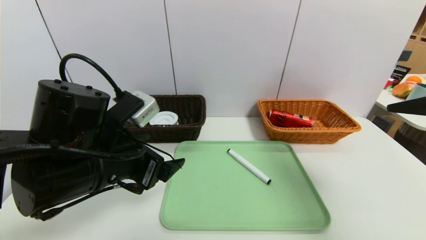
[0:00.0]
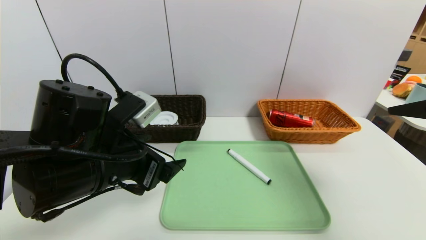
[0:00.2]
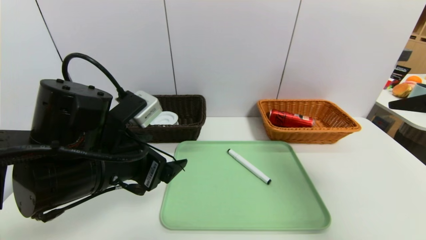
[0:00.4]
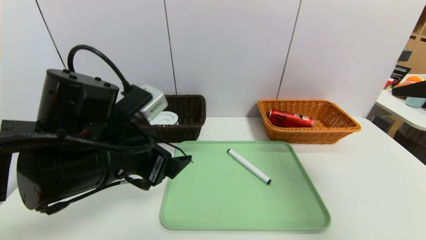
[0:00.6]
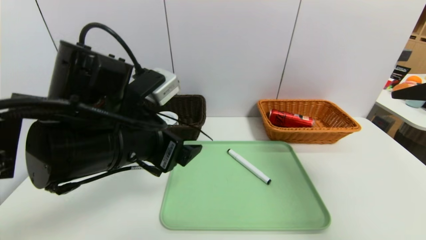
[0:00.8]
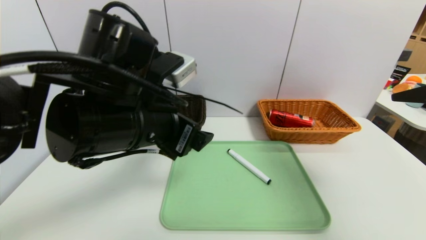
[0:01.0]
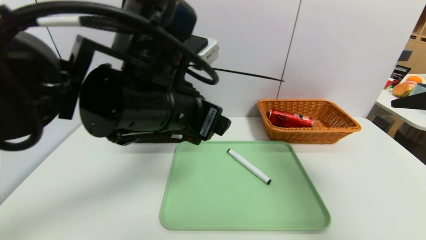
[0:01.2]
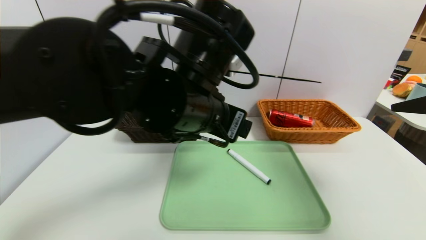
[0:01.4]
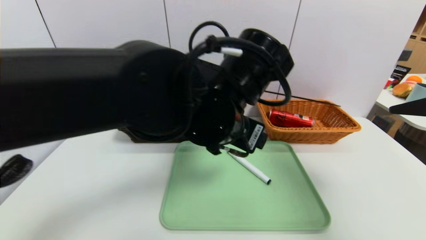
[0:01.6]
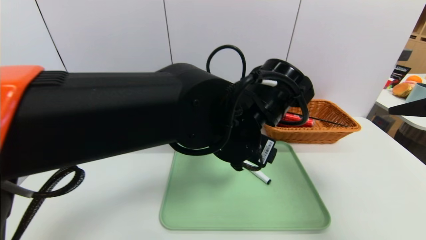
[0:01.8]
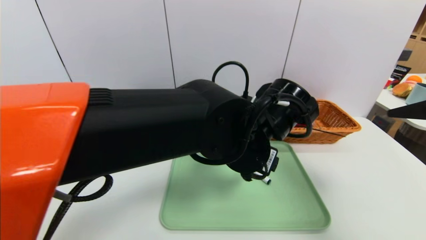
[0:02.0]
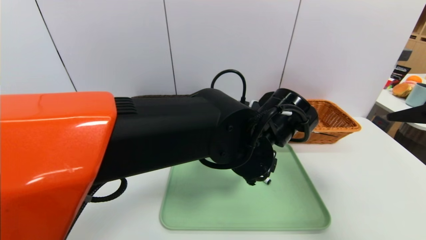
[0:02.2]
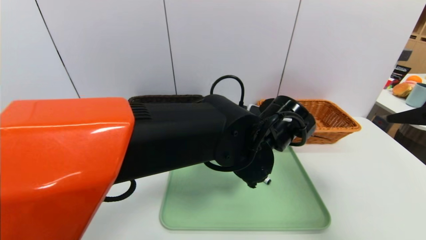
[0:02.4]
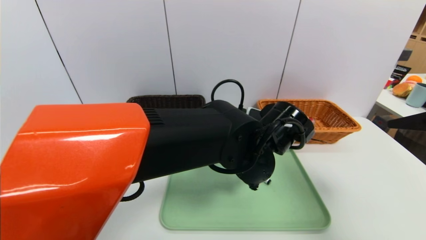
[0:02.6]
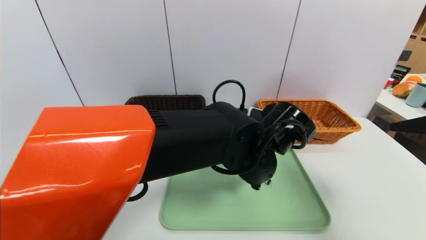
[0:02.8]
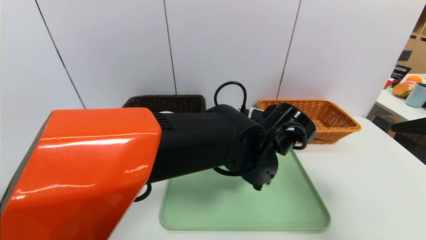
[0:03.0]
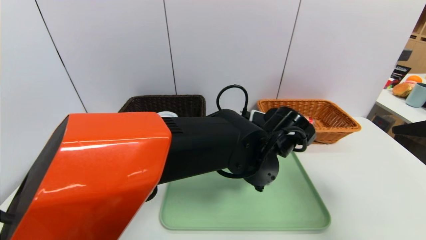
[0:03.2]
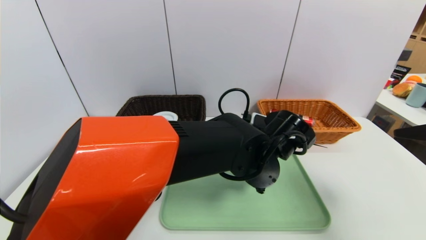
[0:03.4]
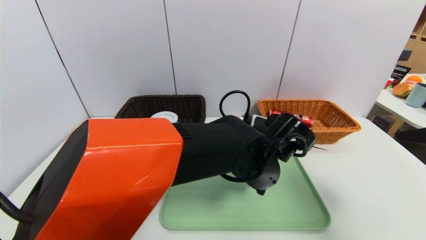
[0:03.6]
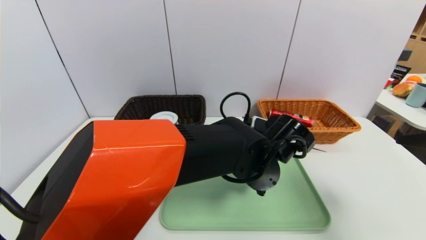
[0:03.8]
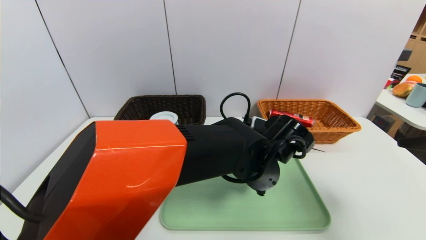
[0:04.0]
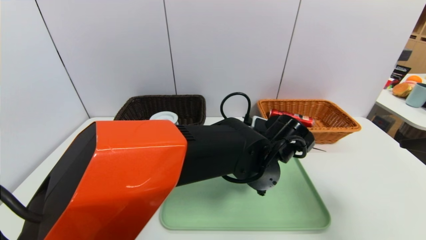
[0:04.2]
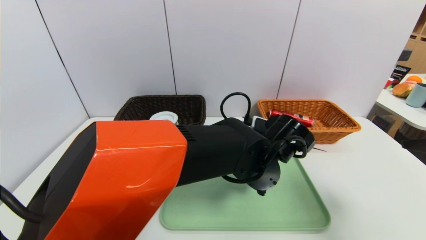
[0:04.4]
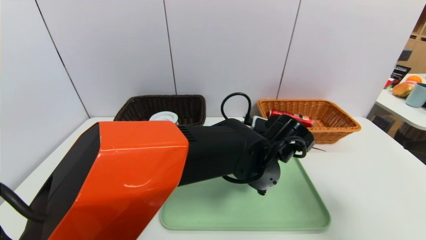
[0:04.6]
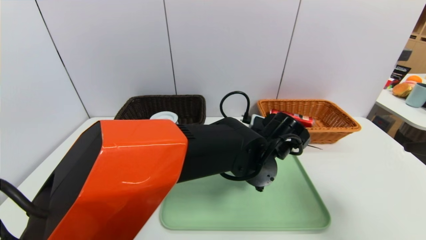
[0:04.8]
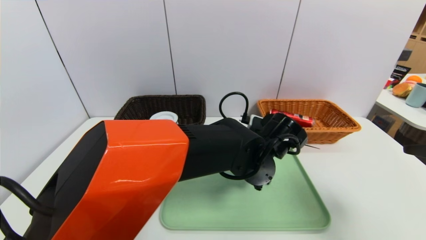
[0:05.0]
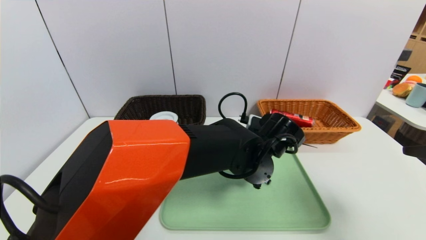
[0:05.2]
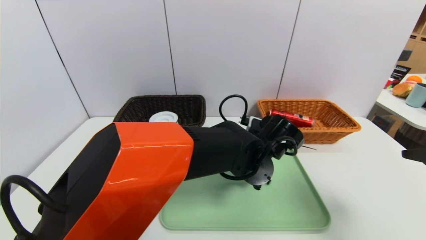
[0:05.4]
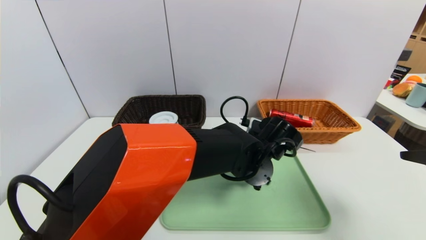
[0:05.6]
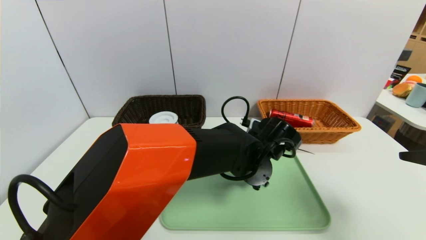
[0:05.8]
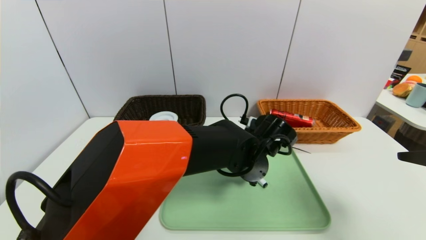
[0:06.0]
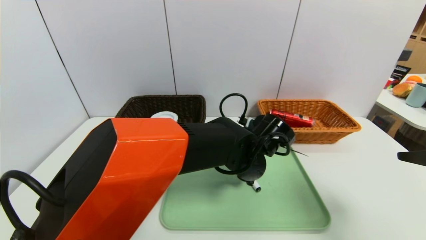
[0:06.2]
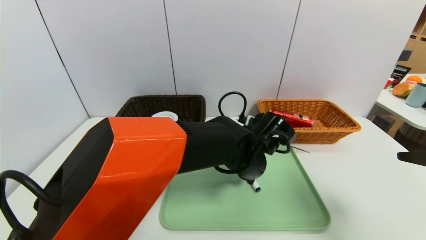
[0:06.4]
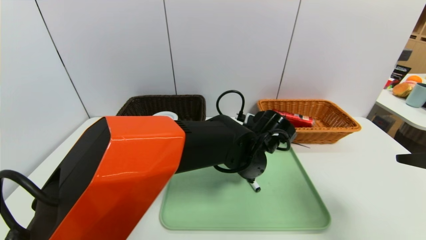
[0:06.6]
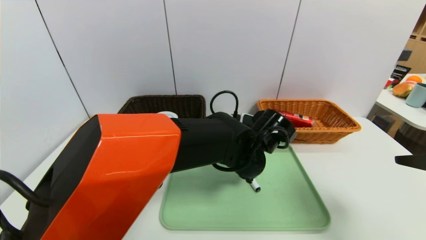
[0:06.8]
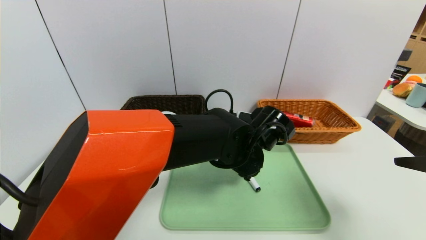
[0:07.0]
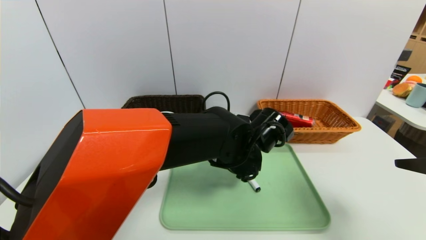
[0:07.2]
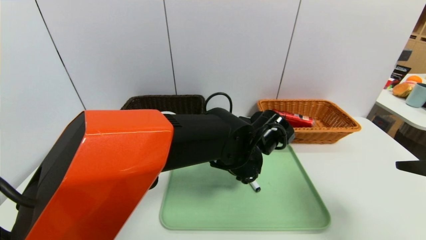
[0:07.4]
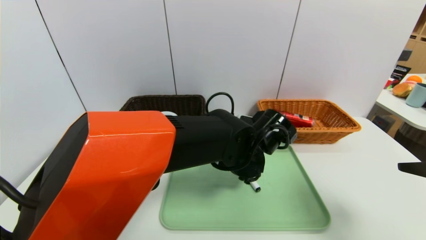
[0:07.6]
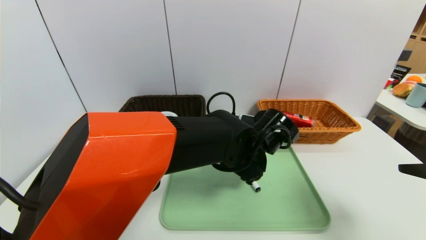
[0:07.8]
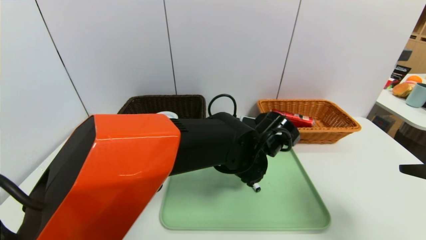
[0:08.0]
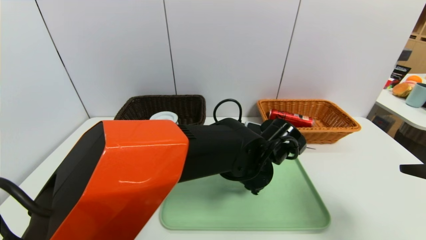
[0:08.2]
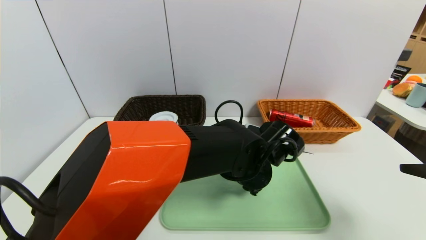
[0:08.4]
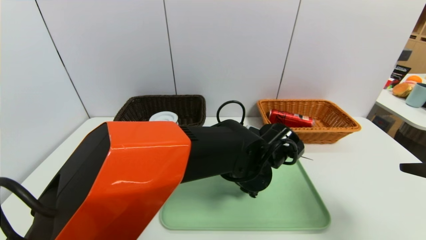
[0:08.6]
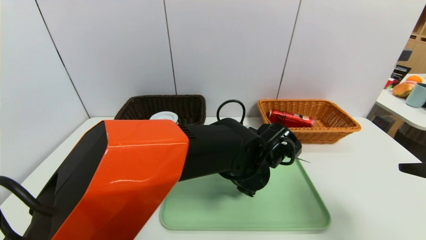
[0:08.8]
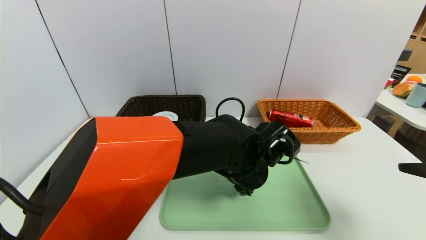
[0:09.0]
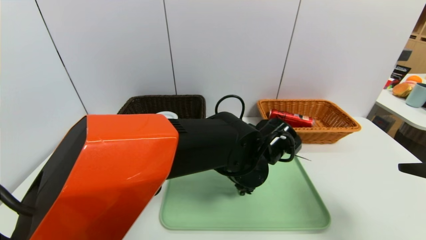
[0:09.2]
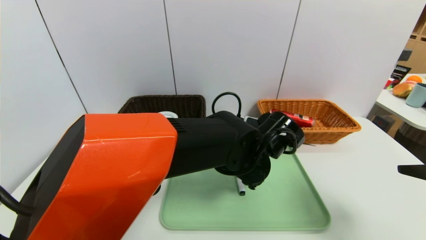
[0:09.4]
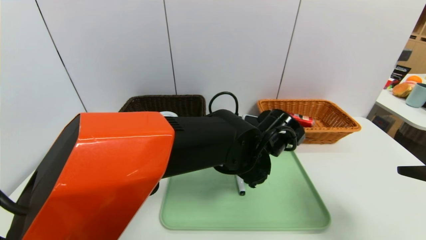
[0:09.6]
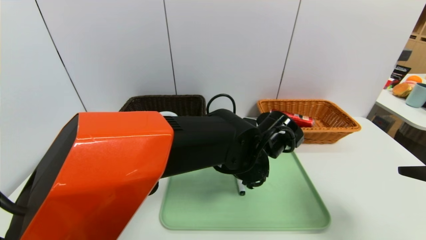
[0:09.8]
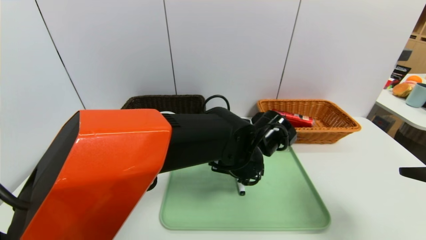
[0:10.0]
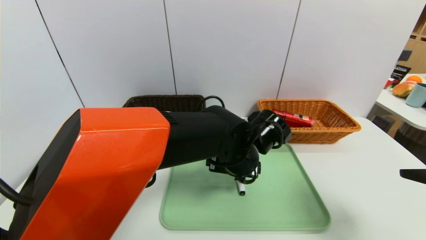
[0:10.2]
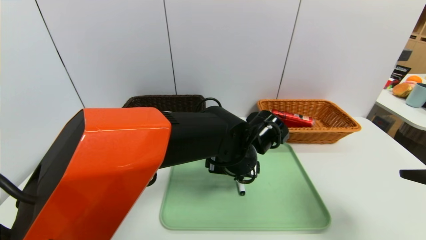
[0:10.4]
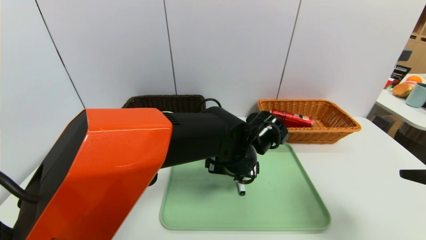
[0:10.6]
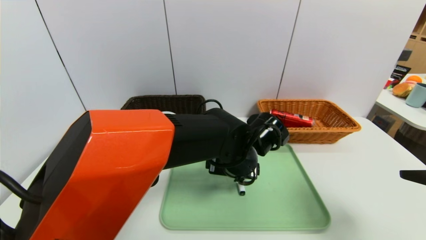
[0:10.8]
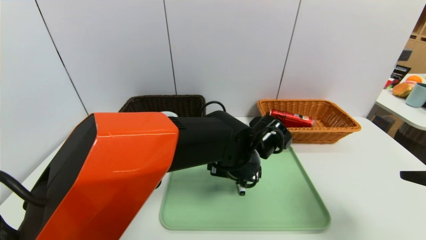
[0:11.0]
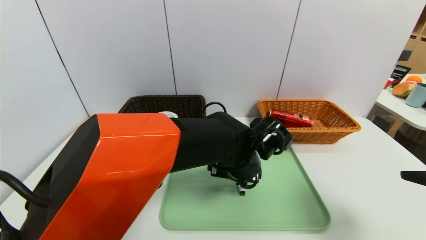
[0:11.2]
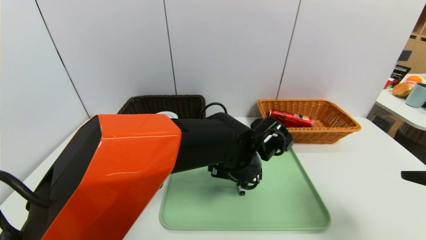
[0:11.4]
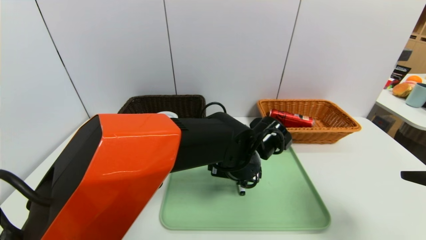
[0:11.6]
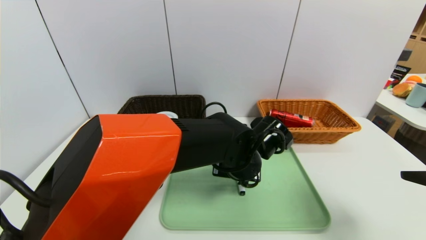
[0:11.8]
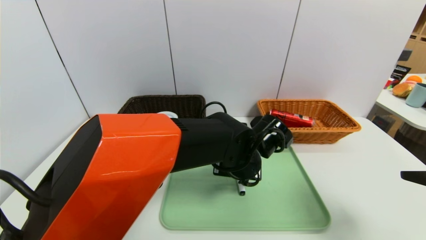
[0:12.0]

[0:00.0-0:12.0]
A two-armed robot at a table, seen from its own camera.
Task of the whole recording: place the food in the right basket with the right gripper, and place the non food items in the left basket with the left gripper.
0:00.0 to 0:01.6: The left gripper shifts roughly 15 cm to the right.
0:01.6 to 0:03.0: The left gripper heads downward and to the right, covering about 10 cm.
0:03.0 to 0:09.0: There are only small adjustments of the grippers.
0:10.4 to 0:12.0: The left gripper closes its fingers.

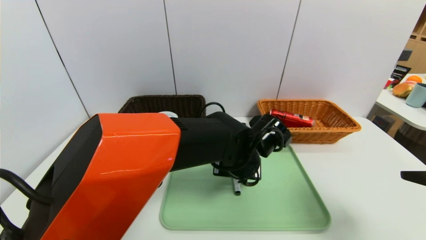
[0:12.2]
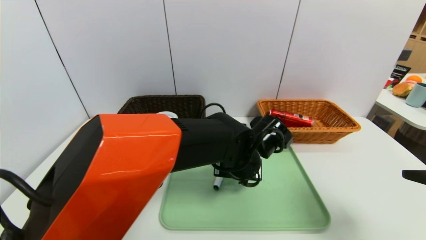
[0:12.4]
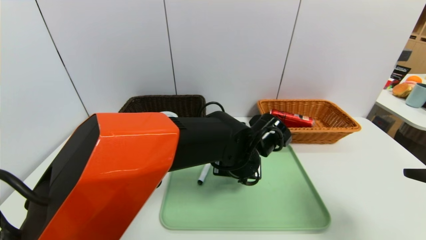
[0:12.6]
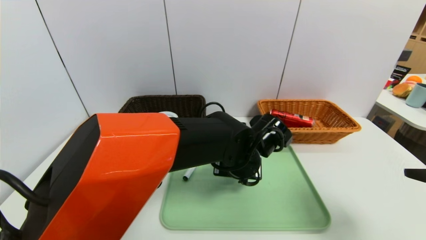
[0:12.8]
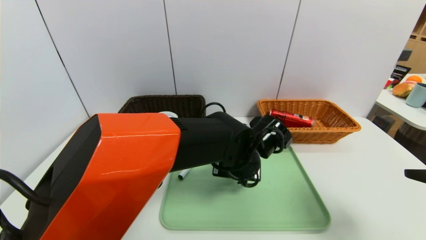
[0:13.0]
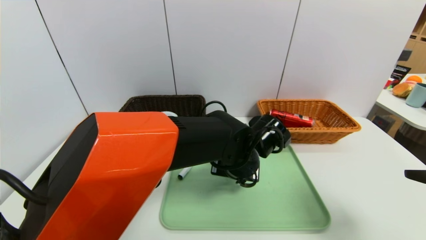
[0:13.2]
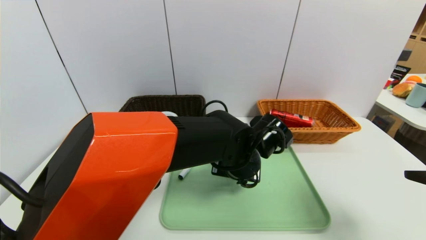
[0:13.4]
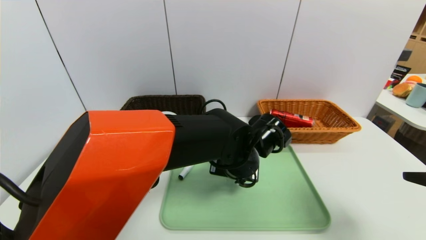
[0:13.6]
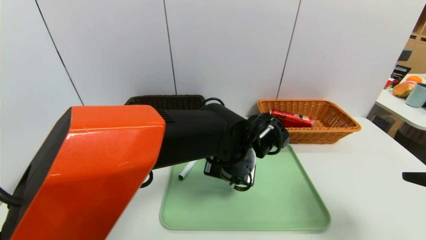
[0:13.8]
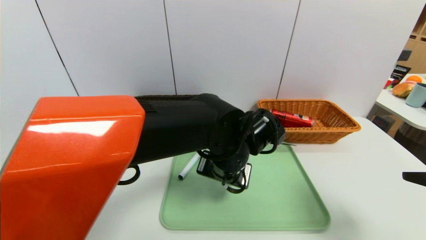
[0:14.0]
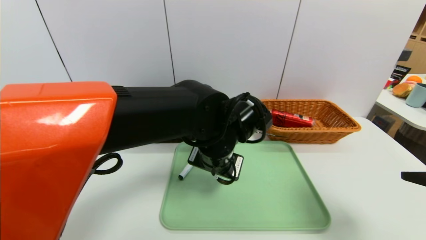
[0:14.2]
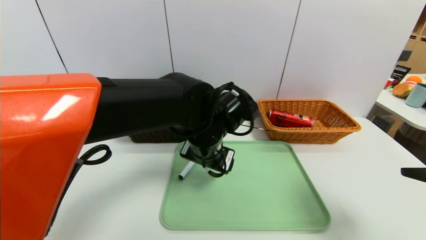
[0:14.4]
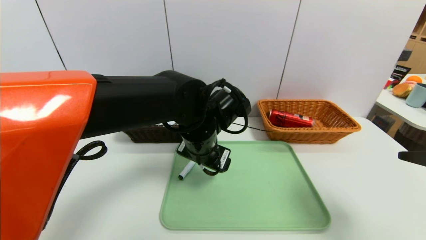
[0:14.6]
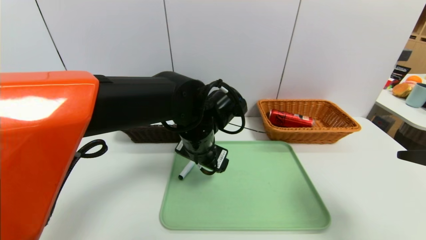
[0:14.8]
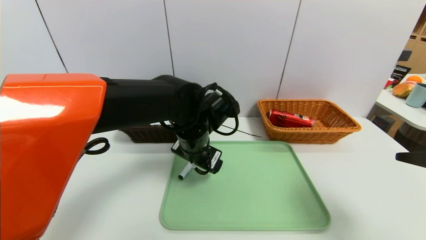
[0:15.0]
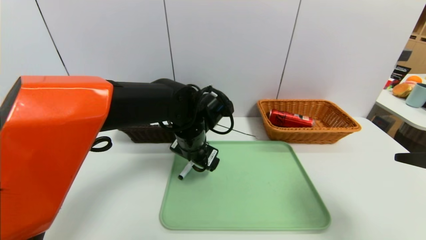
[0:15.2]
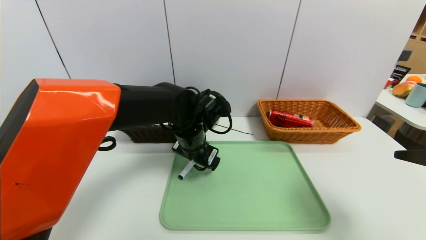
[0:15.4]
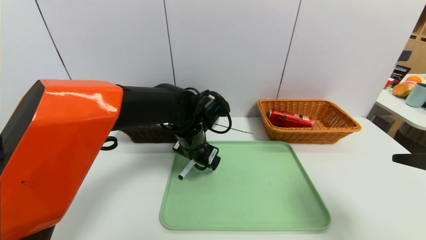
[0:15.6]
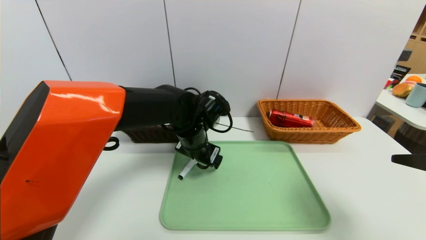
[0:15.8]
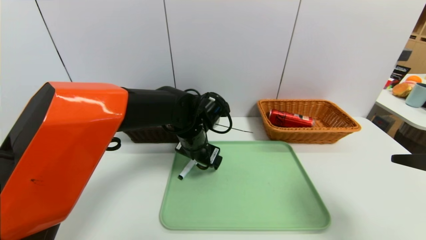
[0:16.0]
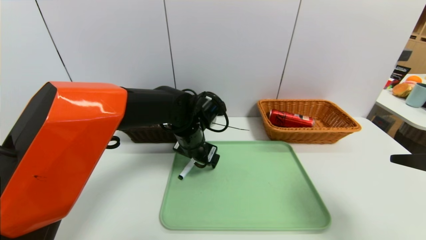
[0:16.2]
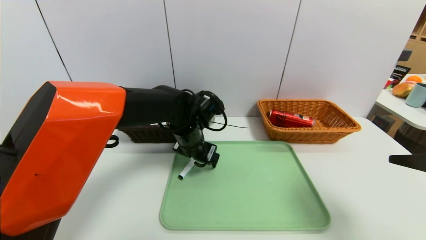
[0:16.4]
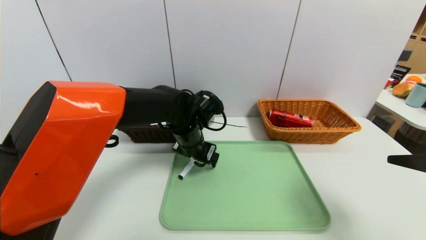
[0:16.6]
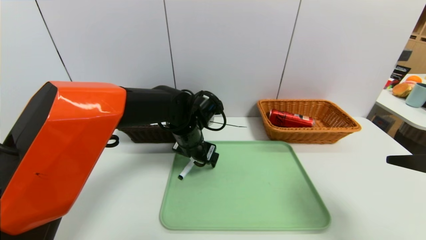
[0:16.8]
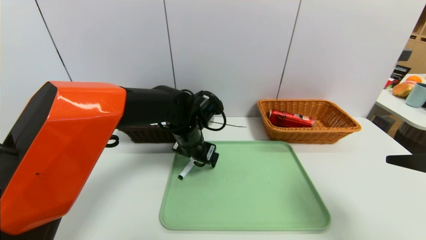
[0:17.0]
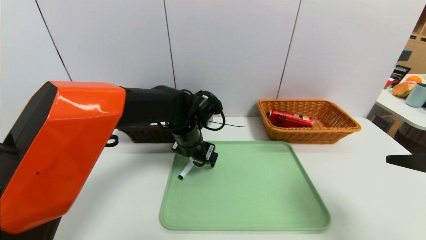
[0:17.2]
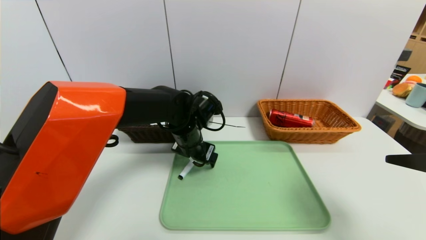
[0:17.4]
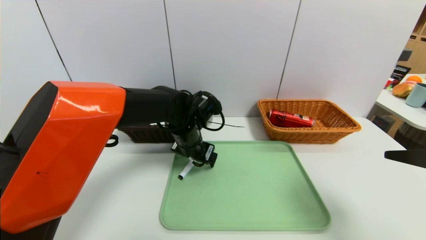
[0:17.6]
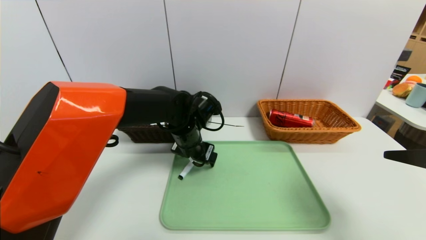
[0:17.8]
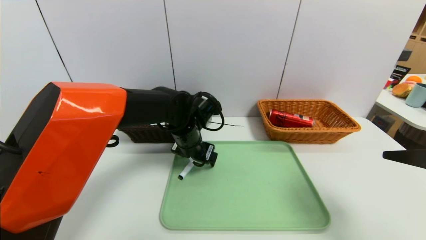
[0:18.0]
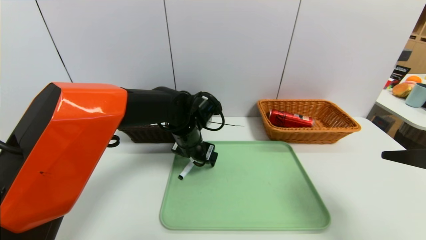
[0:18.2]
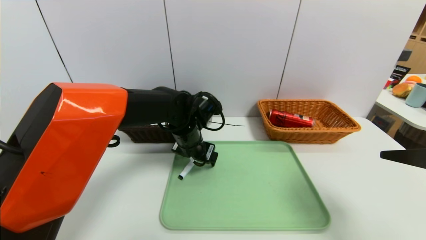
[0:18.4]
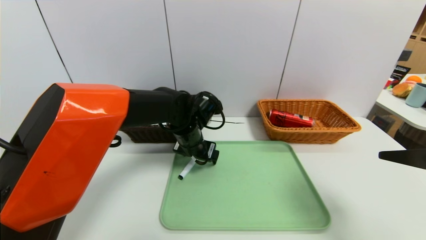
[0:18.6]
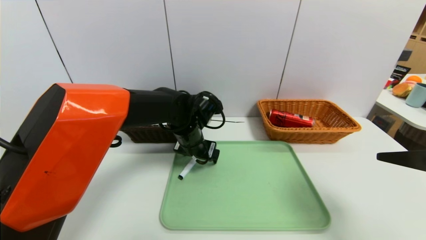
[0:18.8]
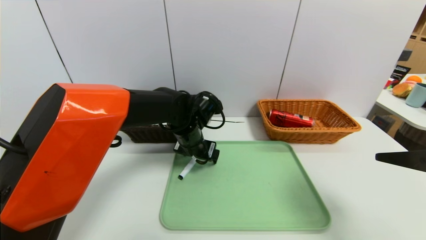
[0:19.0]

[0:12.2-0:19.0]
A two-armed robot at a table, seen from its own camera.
Task of the whole recording: place the food in the right basket with the right gripper, and place the non food items in the left basket with the left gripper.
0:12.2 to 0:13.6: The left gripper opens.
0:13.6 to 0:15.0: The left gripper is displaced to the left by approximately 10 cm, and opens.
0:15.0 to 0:16.2: The left gripper ends up roughly 5 cm from where it was.
0:16.2 to 0:17.6: The two grippers keep their place.
0:17.6 to 0:19.0: The grippers move only a little.
